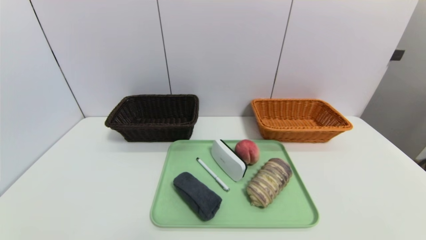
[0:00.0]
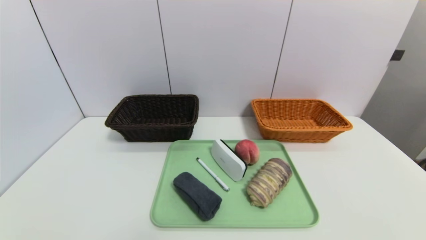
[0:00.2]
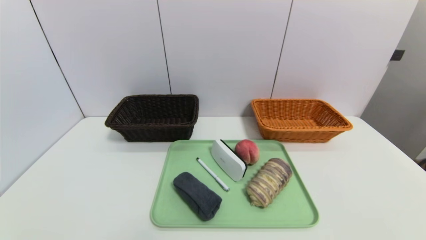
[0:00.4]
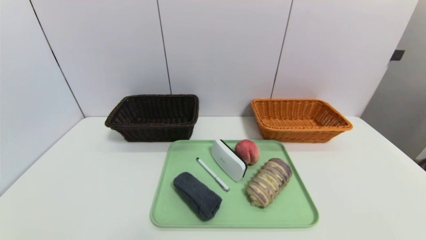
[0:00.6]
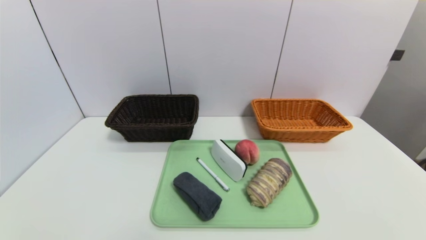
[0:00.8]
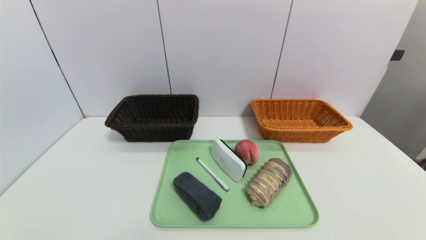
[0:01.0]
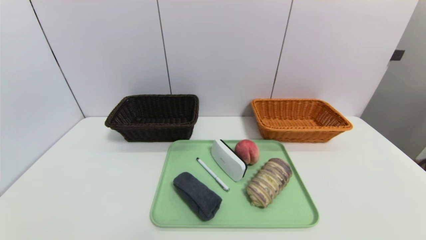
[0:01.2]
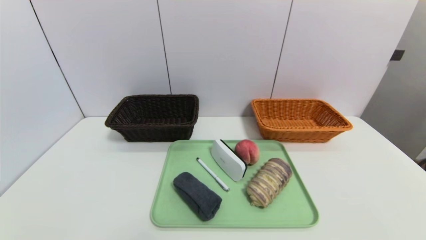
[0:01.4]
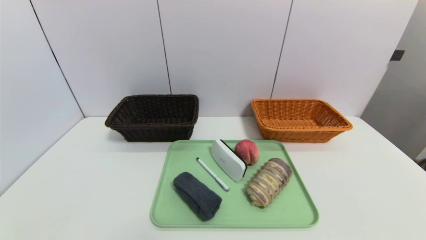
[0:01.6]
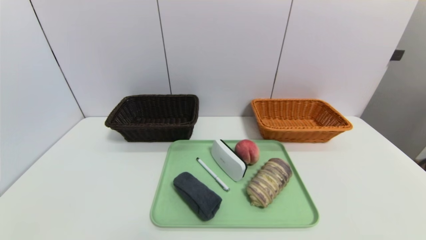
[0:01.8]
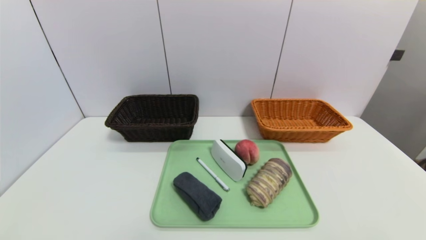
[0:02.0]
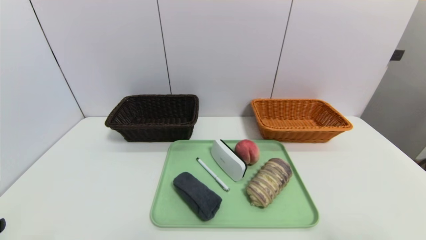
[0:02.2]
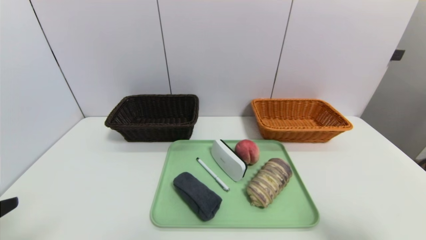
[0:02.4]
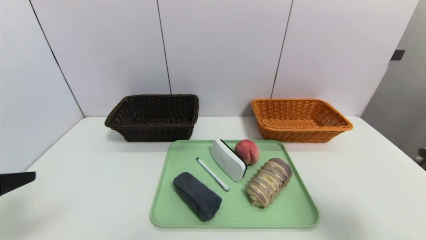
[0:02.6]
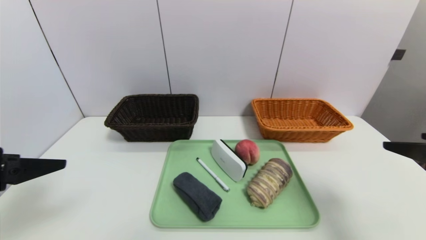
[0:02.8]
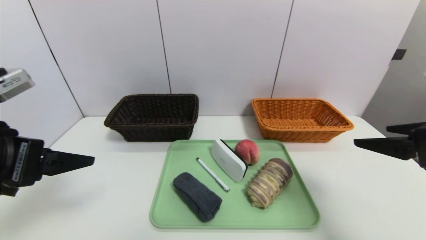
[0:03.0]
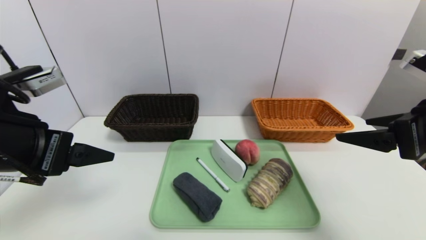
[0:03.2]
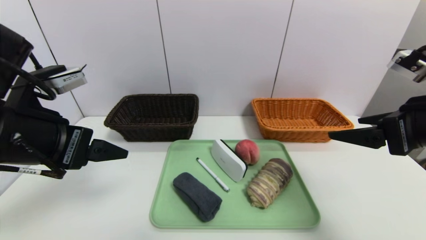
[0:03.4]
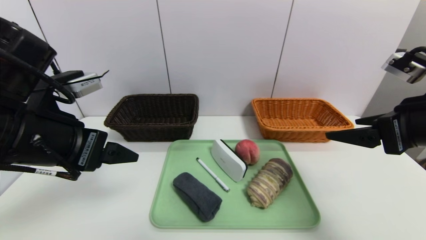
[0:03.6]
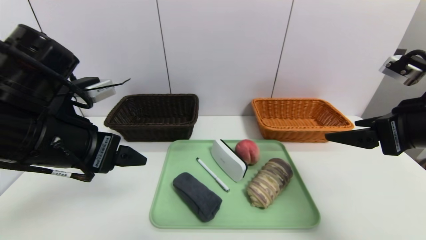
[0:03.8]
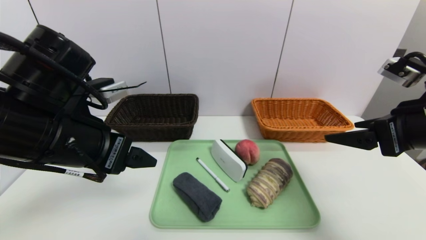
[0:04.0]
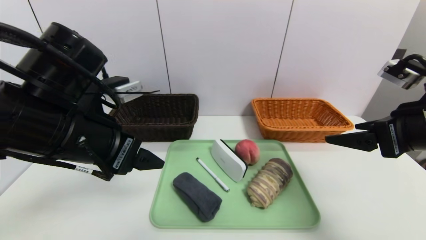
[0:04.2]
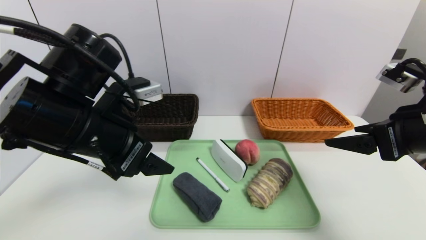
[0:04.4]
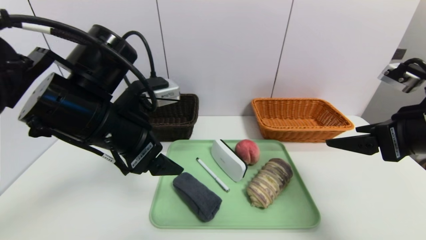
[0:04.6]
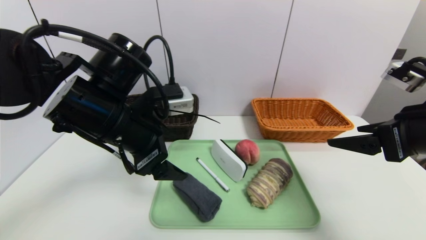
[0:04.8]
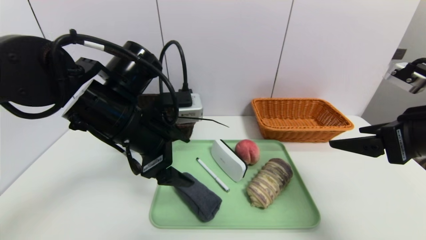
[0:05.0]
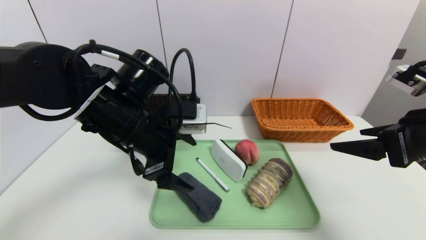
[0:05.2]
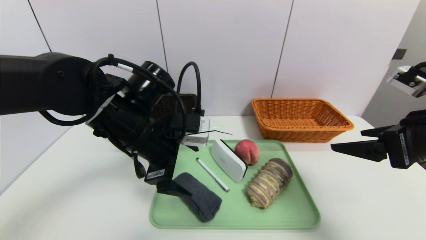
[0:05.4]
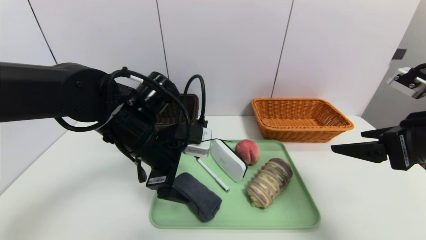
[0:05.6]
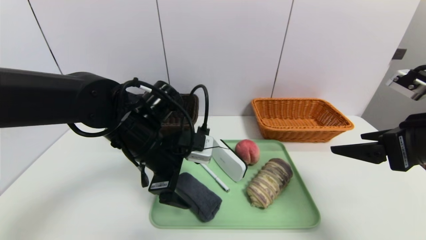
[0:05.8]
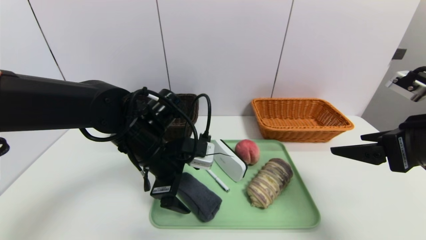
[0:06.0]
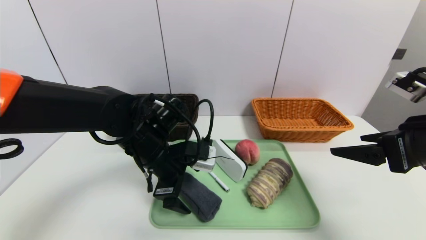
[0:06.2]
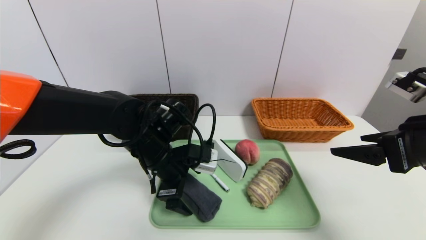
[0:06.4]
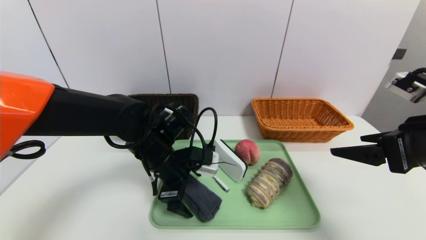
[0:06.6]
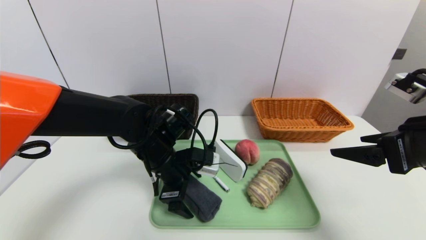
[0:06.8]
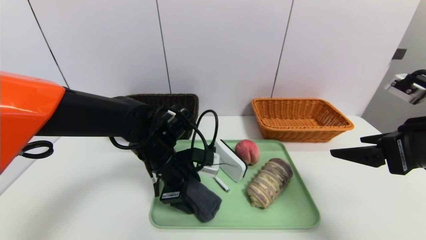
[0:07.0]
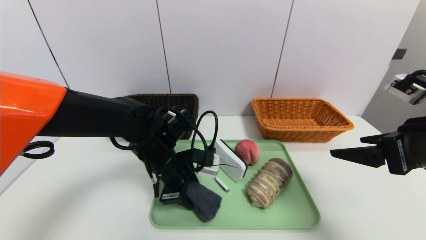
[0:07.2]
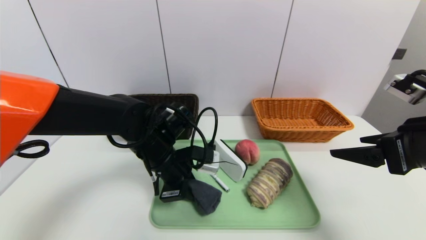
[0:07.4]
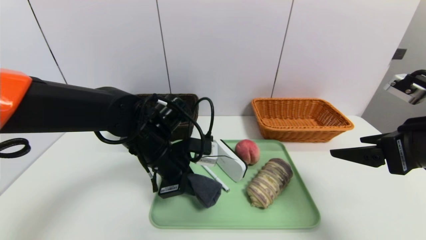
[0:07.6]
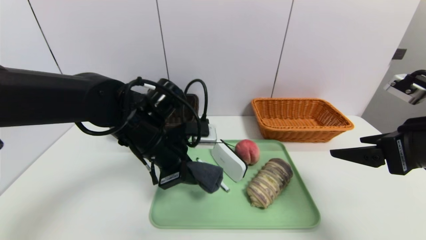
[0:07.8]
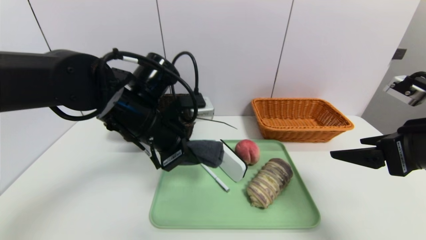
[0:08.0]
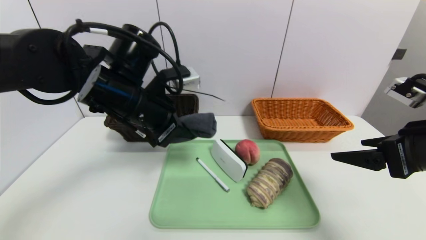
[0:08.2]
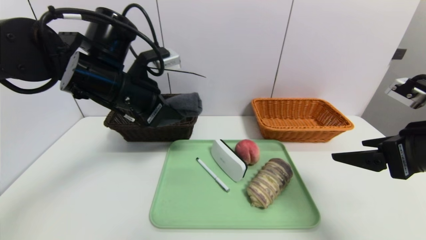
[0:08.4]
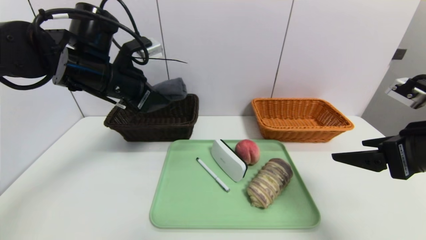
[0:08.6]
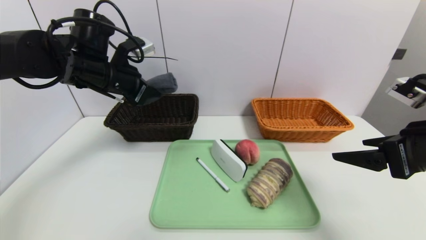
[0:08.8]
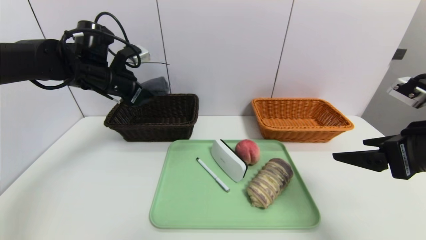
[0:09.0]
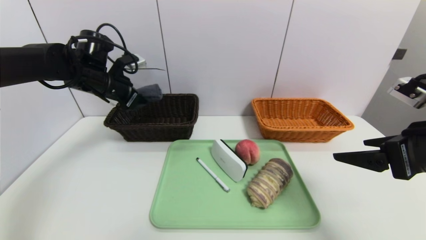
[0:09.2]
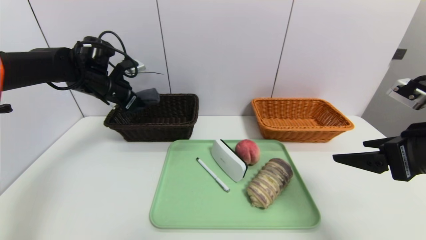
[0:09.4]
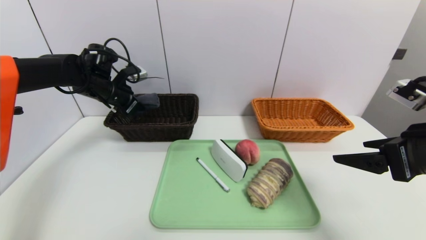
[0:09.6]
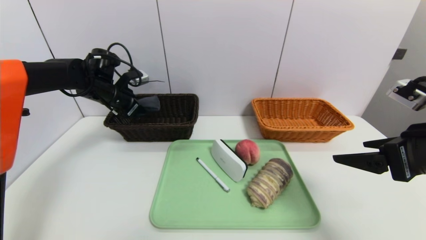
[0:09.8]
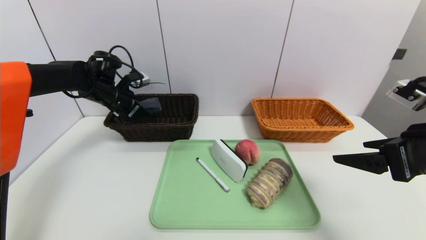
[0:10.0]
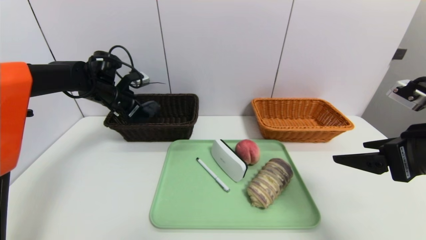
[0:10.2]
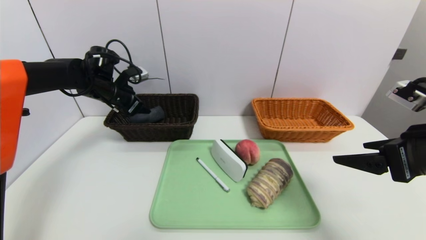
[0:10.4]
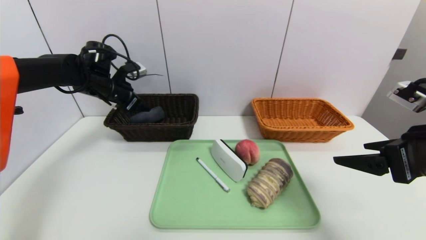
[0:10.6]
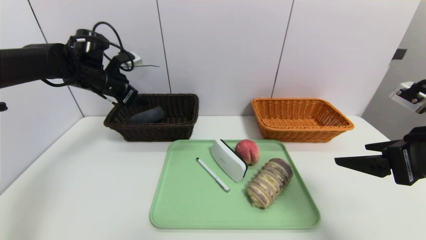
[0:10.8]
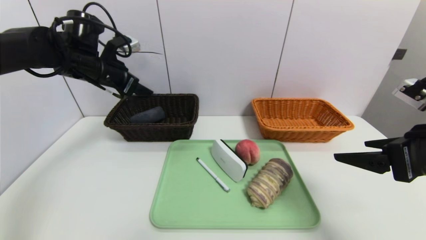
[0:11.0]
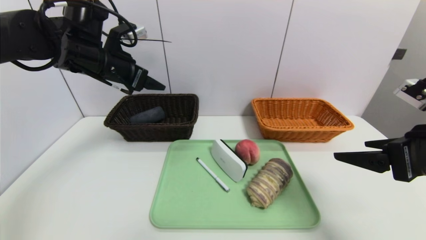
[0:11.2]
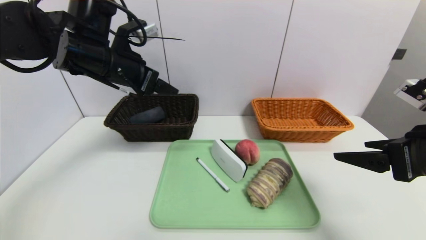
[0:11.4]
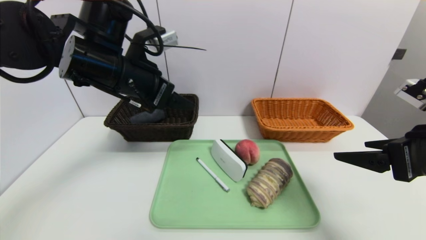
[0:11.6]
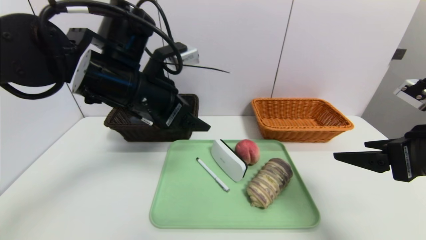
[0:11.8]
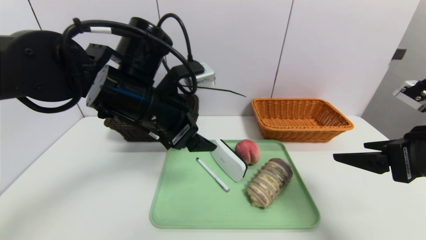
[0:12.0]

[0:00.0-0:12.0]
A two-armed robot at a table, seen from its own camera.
Task of the whole recording: place the food in the right basket with the right gripper, and place the non food items in the left basket with the left gripper.
Step, 0:00.0 to 0:10.8: Grasp the grey towel and put it in the left basket.
0:01.6 to 0:03.0: The right gripper moves forward and upward, approximately 25 cm. Meanwhile the left gripper heads upward and forward, covering approximately 25 cm.
0:03.0 to 0:04.4: The left gripper travels to the right and forward by about 10 cm.
0:04.4 to 0:06.0: The left gripper shifts roughly 10 cm downward, forward and to the right.
0:06.0 to 0:07.6: The left gripper closes up.
0:07.6 to 0:09.0: The left gripper shifts approximately 20 cm to the left, forward and upward.
0:09.0 to 0:10.4: The left gripper travels forward by some 5 cm, and opens.
0:10.4 to 0:12.0: The left gripper goes some 25 cm backward and to the right.

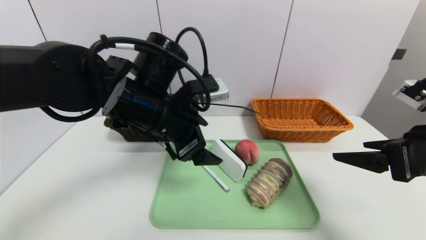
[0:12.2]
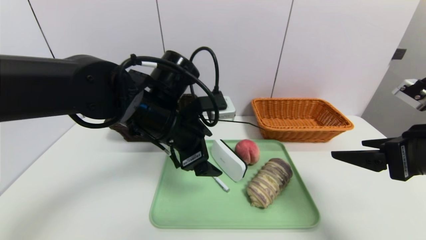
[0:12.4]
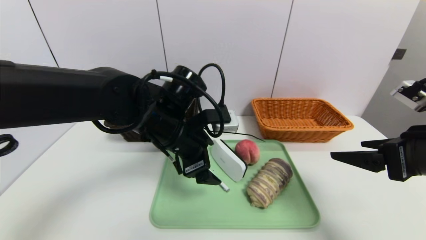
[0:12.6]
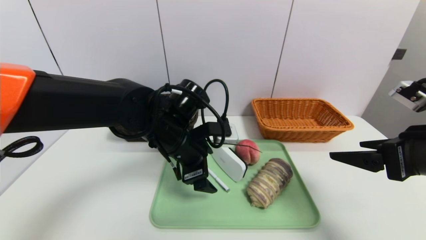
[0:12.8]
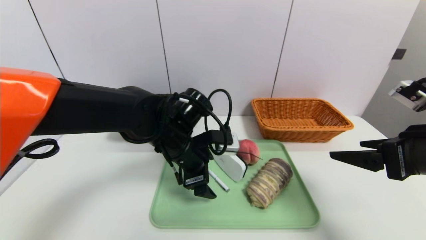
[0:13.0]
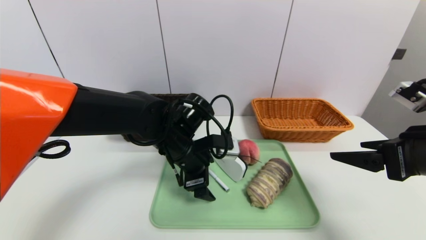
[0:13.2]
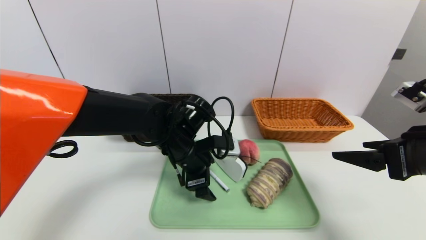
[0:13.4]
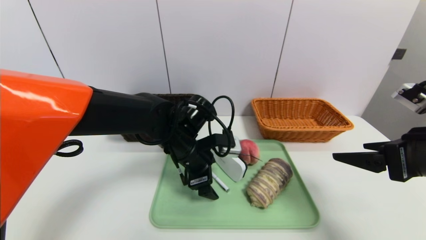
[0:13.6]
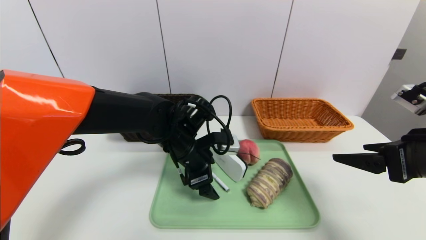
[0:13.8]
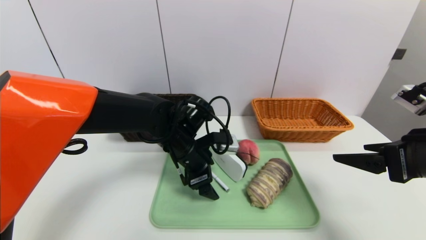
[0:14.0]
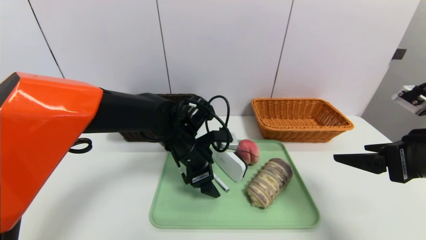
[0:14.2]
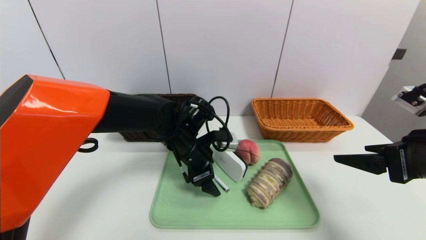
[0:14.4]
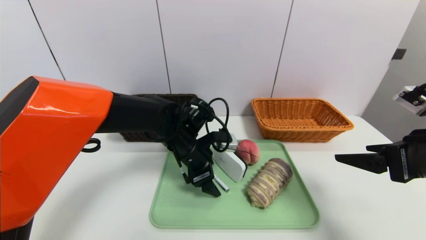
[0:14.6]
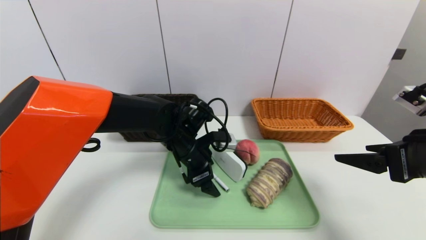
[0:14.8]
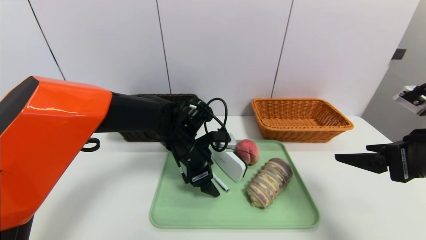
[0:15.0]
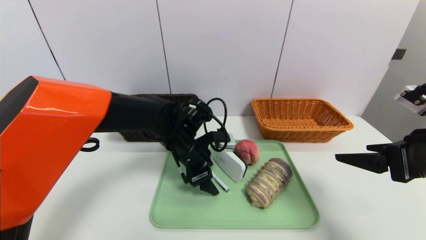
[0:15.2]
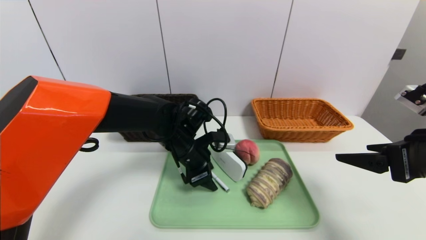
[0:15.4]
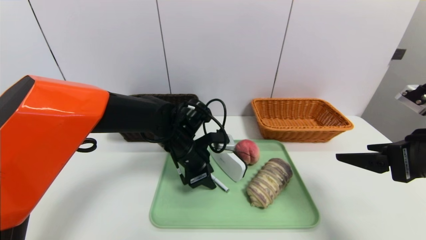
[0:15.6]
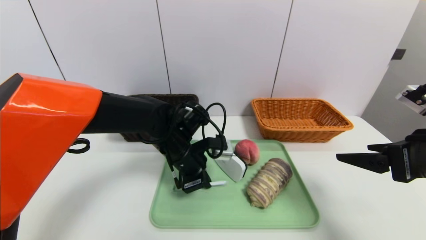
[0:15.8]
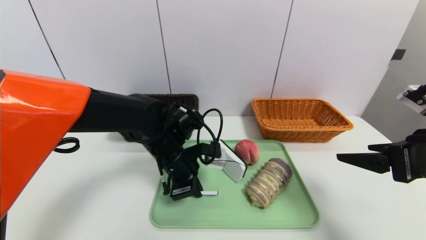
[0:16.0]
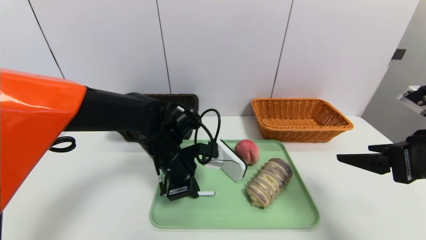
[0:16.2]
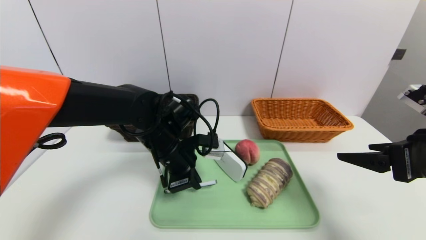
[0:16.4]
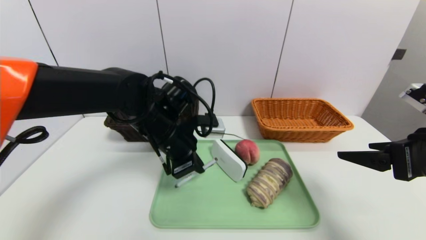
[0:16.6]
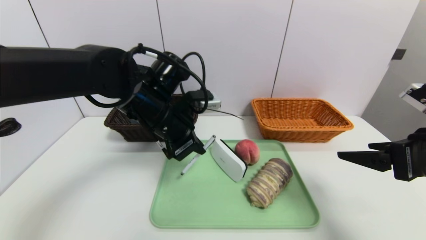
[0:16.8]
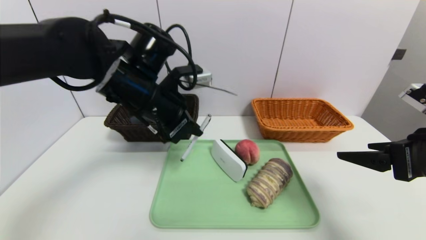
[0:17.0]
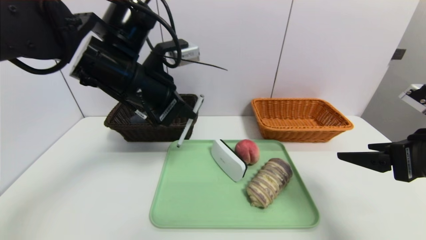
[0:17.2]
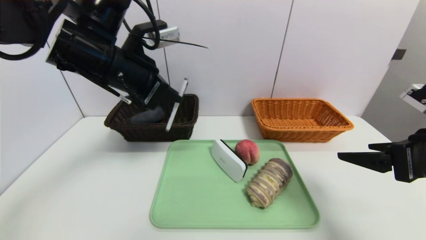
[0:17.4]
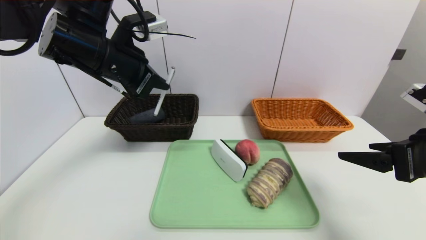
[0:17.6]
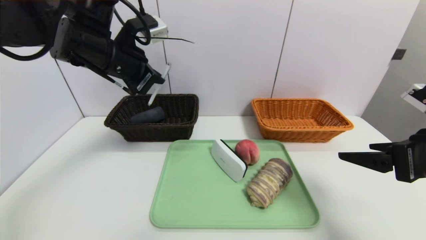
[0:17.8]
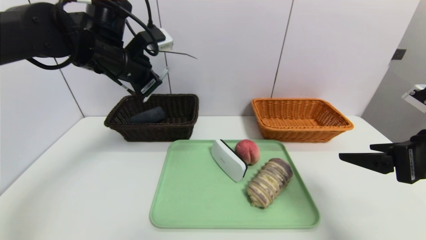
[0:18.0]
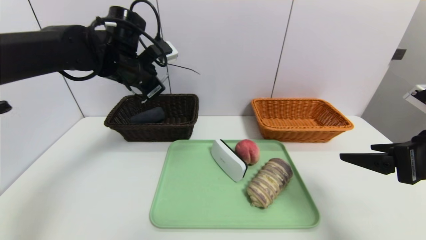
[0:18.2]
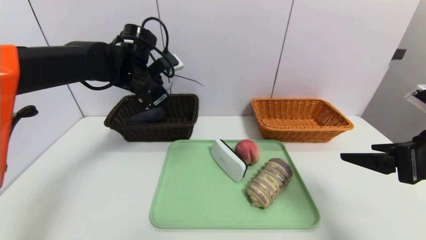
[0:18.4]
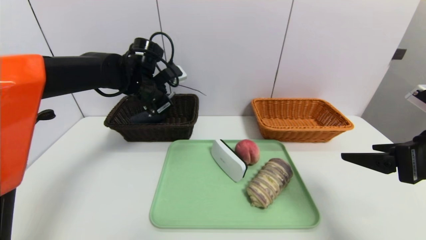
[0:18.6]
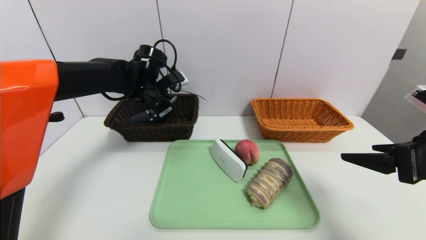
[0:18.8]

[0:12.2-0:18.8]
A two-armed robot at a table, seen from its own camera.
Task of the whole recording: place the food in the right basket with the right gripper, and place the non food items in the left basket with the left gripper.
0:12.2 to 0:13.8: The left gripper moves downward, roughly 10 cm.
0:13.8 to 0:15.4: The left gripper closes its fingers.
0:15.4 to 0:17.2: The left gripper heads upward and to the left, covering some 20 cm, and closes.
0:17.2 to 0:18.8: The left gripper travels forward and downward by approximately 15 cm.
